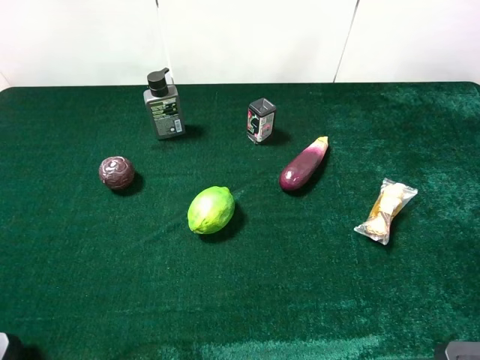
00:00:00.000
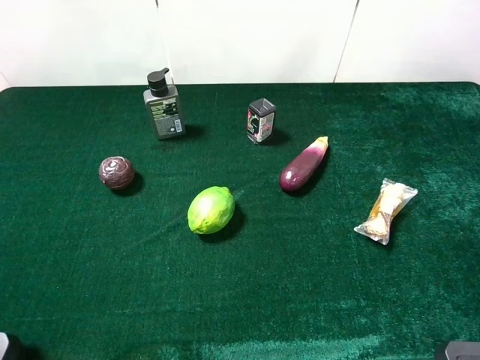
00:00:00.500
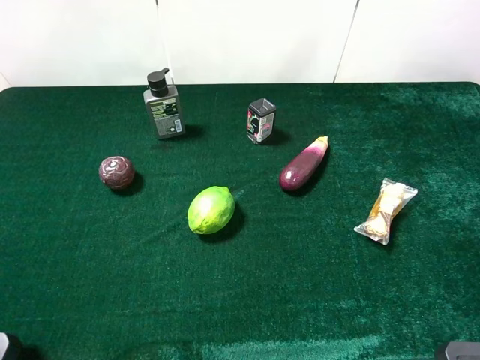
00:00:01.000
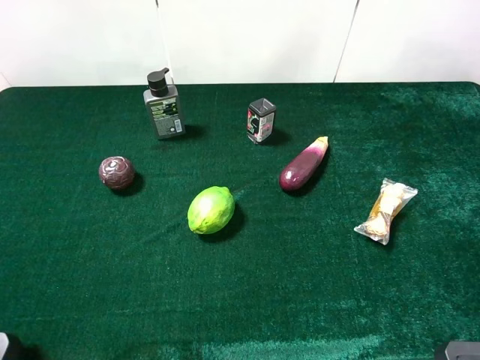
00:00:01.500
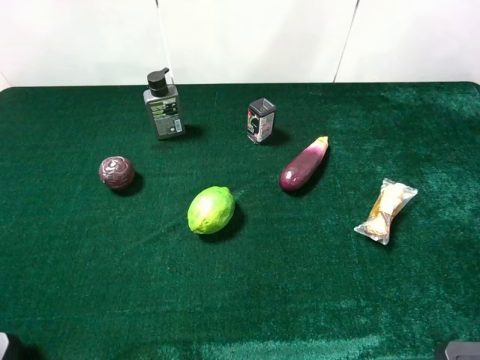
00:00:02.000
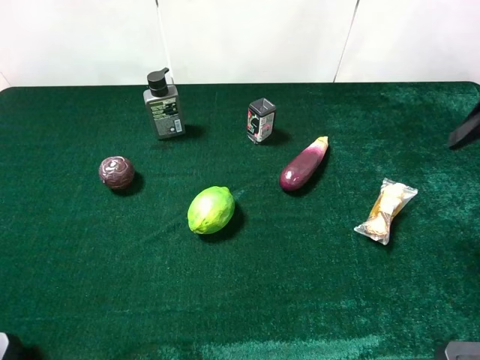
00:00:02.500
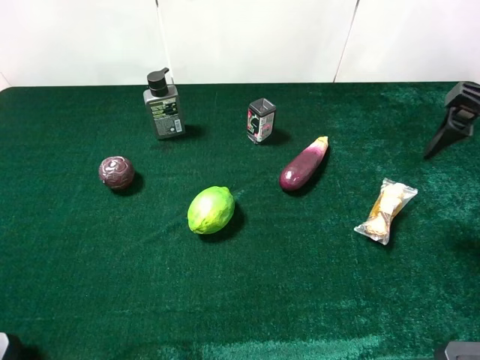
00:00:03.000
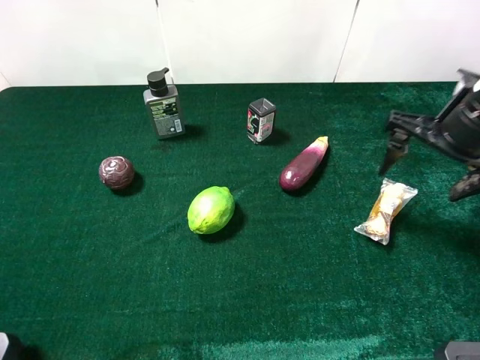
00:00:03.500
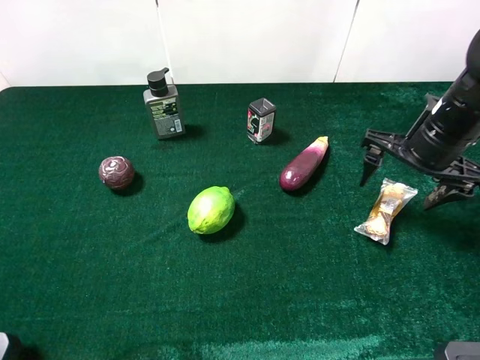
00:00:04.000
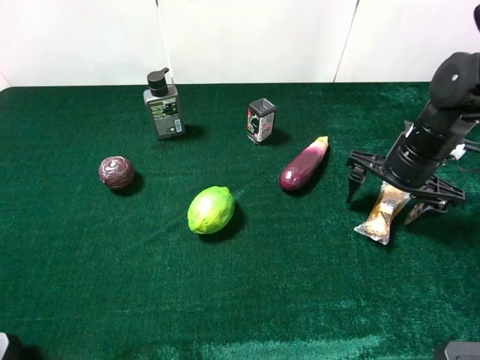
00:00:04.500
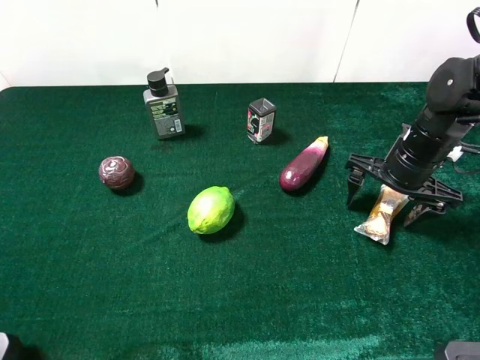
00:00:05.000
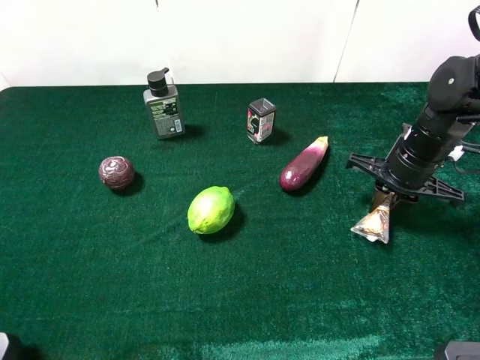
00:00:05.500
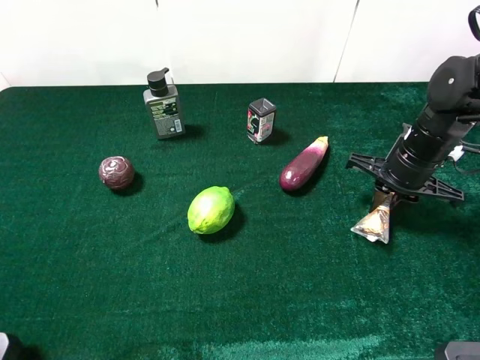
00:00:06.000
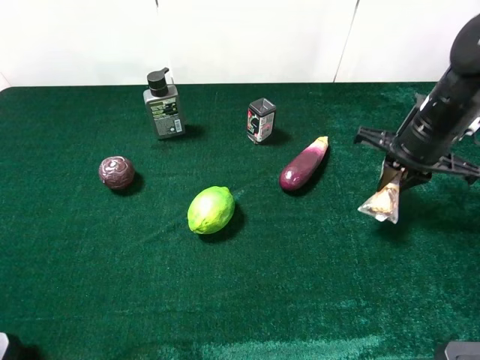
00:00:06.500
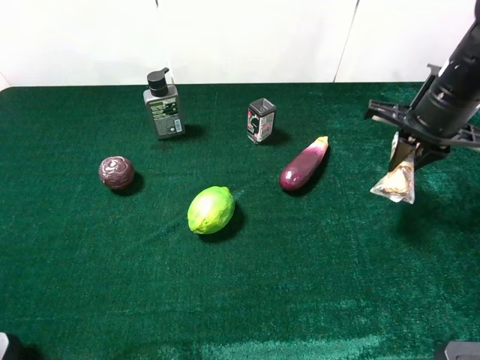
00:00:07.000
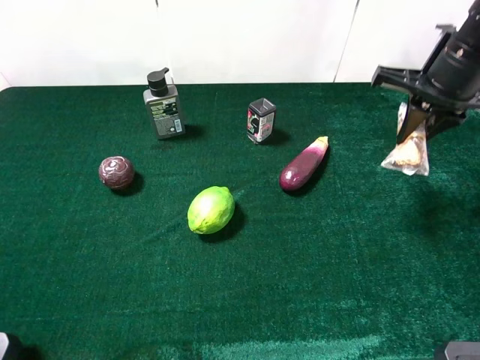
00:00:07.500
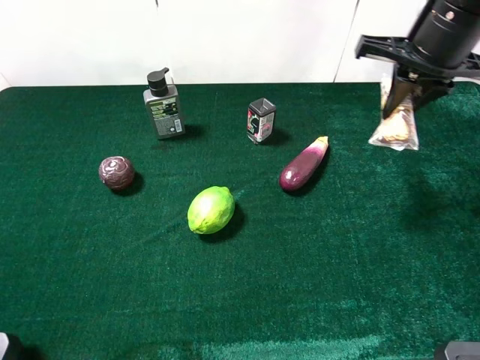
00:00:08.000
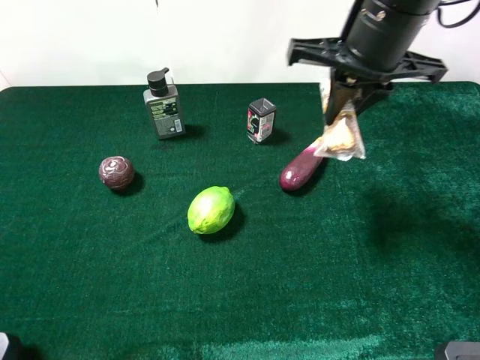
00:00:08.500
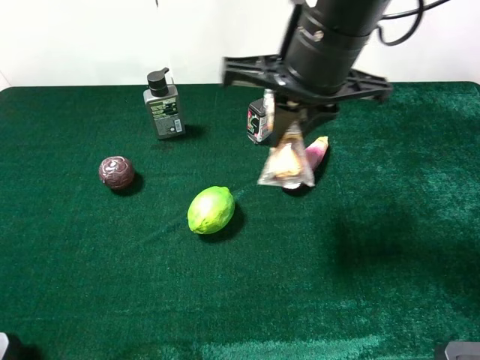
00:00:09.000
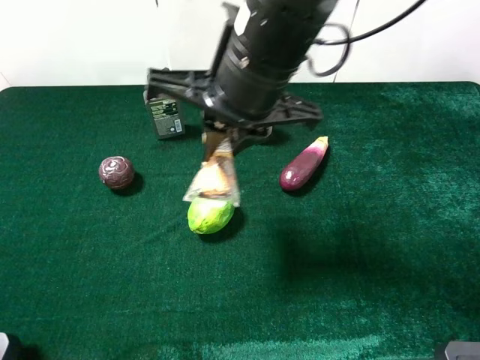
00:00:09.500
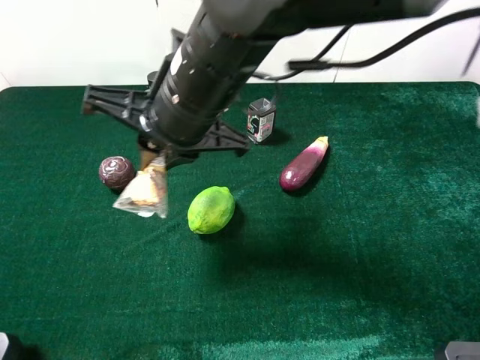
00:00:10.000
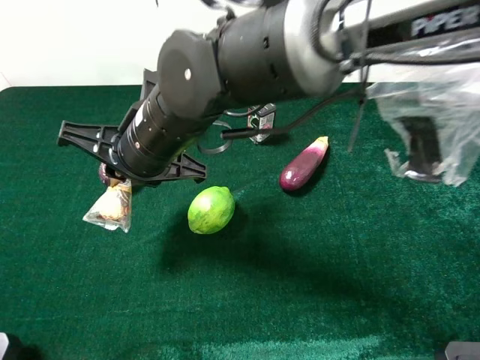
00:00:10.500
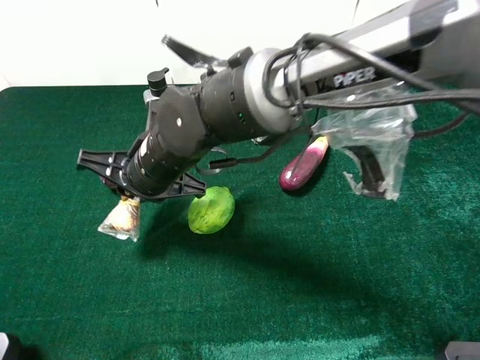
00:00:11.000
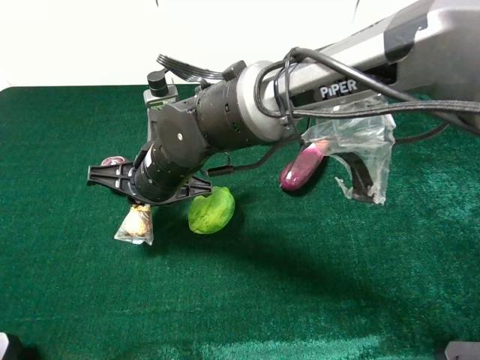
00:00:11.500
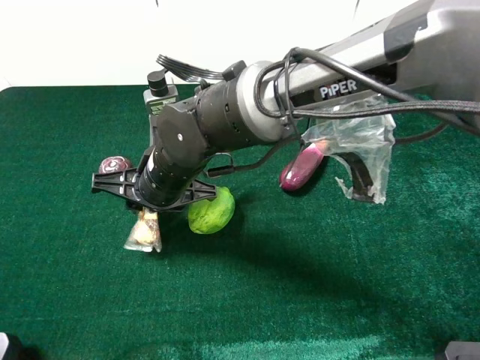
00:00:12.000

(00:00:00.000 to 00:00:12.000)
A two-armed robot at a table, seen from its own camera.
Task of the whole recording: the gripper move the object.
Step, 00:00:00.000 - 00:00:06.000: Grasp the chocolate with the right gripper.
00:00:02.000 - 00:00:04.000: The right gripper is displaced downward and forward by some 25 cm.
00:00:04.000 - 00:00:06.000: The right gripper shifts by some 5 cm, and closes.
00:00:06.000 - 00:00:08.000: The right gripper goes about 15 cm upward.
00:00:08.000 - 00:00:10.000: The right gripper travels to the left and backward by some 25 cm.
00:00:10.000 - 00:00:12.000: The right gripper goes some 10 cm downward, and opens up.

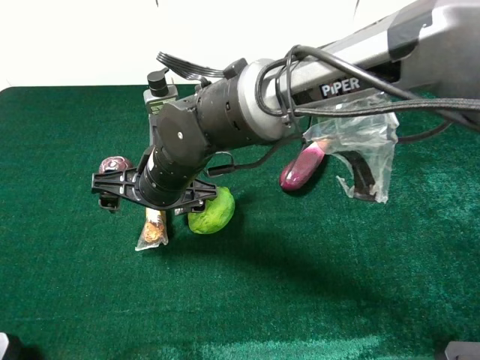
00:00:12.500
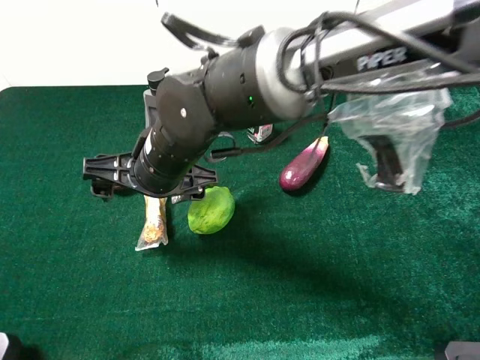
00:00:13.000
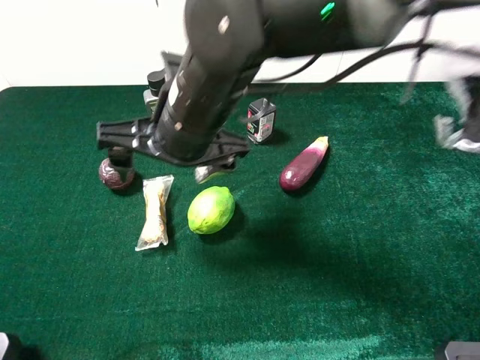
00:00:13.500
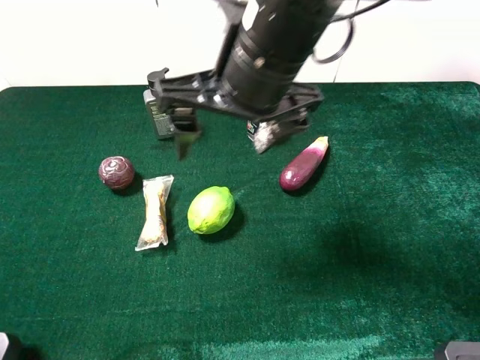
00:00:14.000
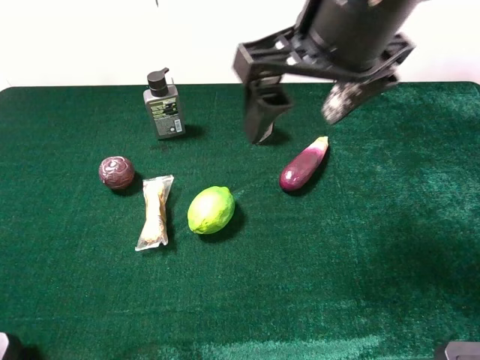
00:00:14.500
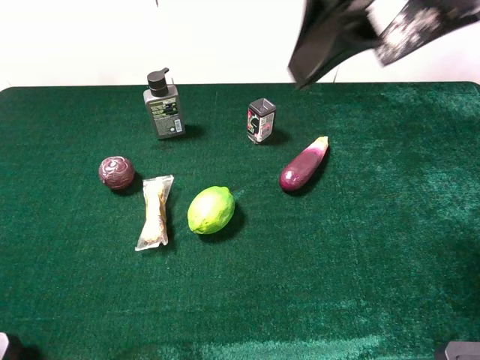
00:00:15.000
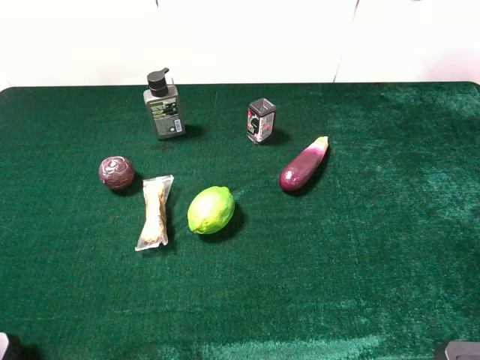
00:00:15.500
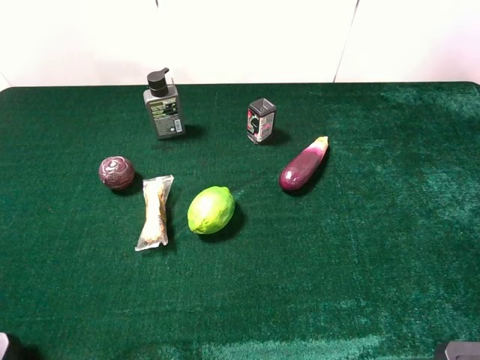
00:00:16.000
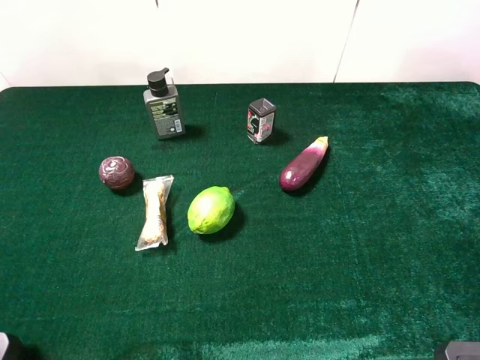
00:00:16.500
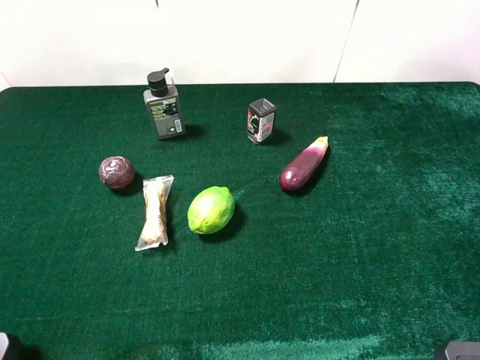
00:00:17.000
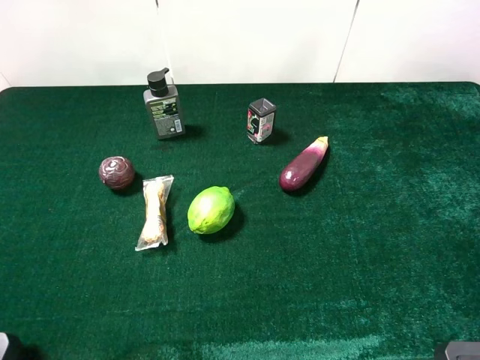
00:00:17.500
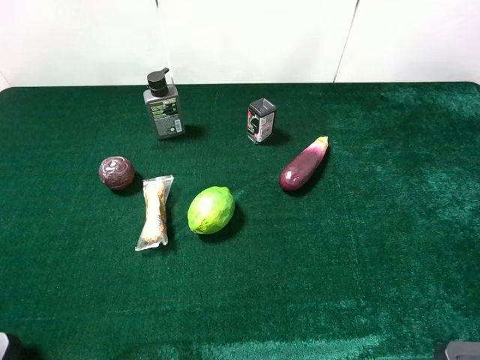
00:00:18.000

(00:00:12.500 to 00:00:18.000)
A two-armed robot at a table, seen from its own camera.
Task of the whole recording: the gripper move the object.
00:00:12.500 - 00:00:14.500: The right gripper shifts some 25 cm upward and to the right.
00:00:14.500 - 00:00:16.000: The right gripper goes some 25 cm to the right, backward and upward.
